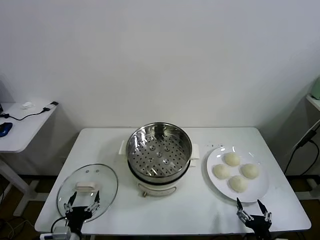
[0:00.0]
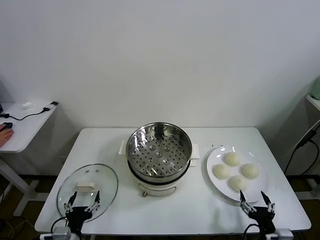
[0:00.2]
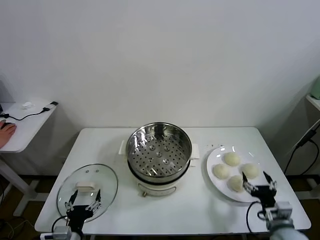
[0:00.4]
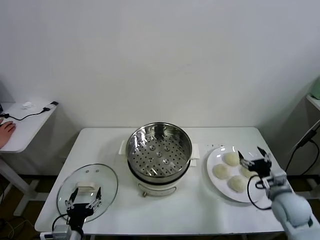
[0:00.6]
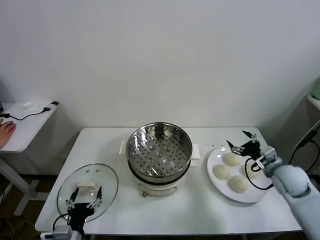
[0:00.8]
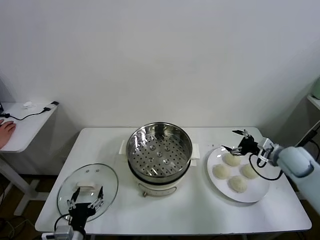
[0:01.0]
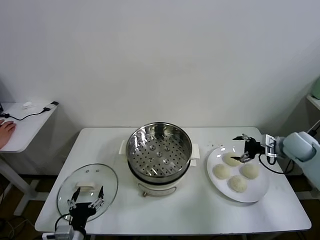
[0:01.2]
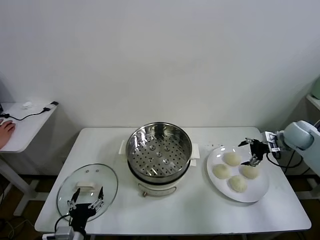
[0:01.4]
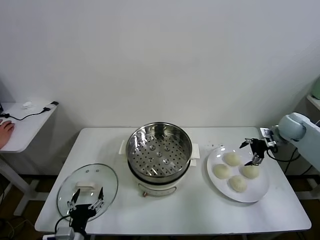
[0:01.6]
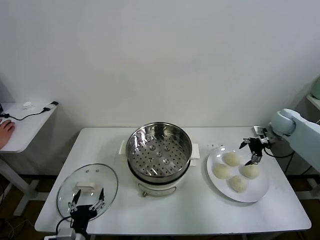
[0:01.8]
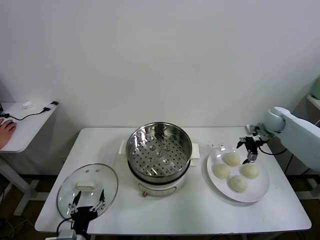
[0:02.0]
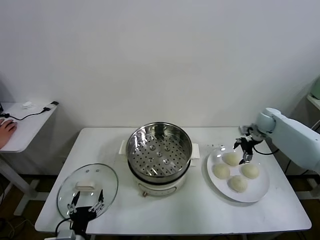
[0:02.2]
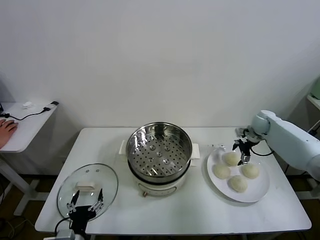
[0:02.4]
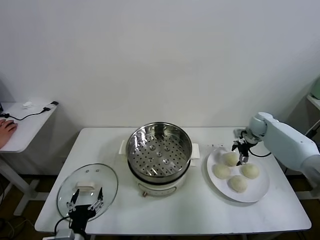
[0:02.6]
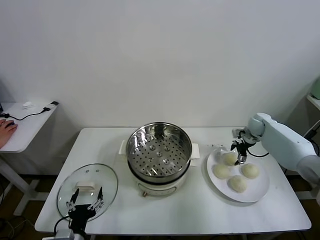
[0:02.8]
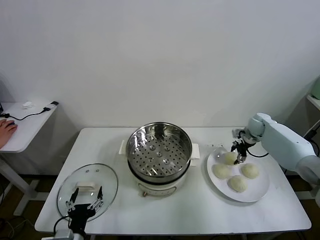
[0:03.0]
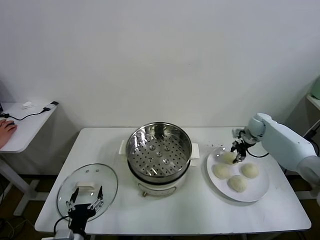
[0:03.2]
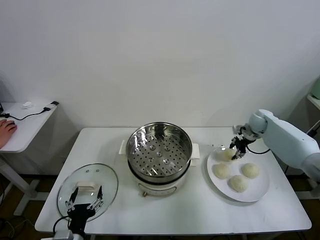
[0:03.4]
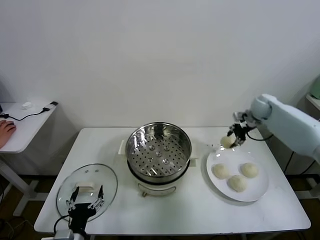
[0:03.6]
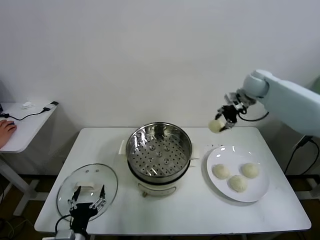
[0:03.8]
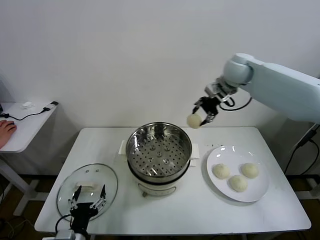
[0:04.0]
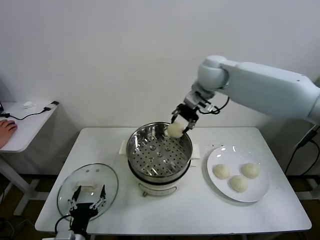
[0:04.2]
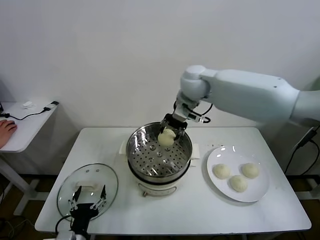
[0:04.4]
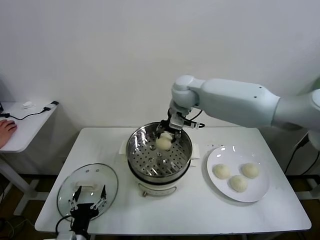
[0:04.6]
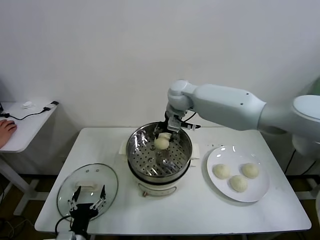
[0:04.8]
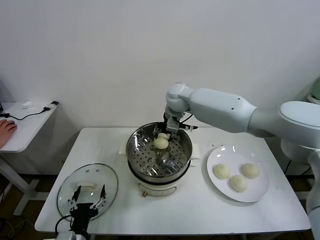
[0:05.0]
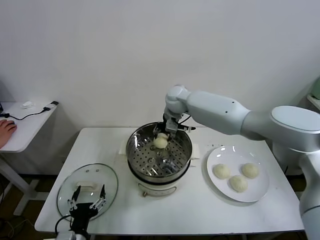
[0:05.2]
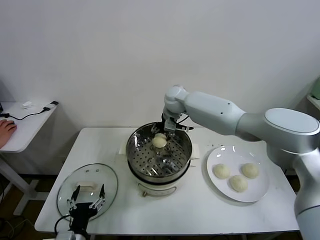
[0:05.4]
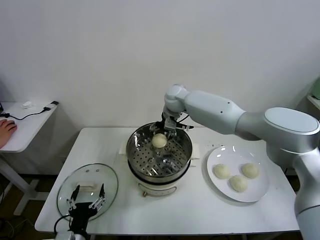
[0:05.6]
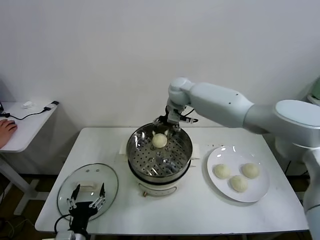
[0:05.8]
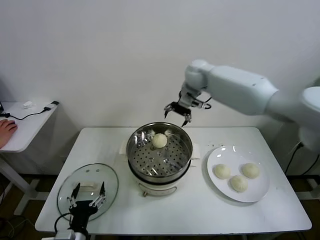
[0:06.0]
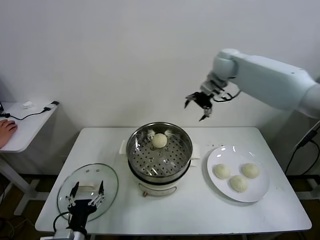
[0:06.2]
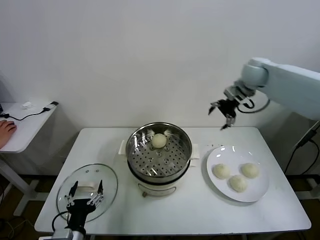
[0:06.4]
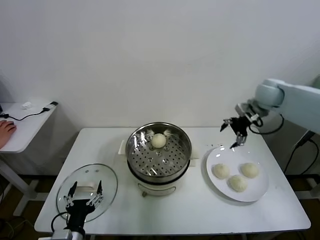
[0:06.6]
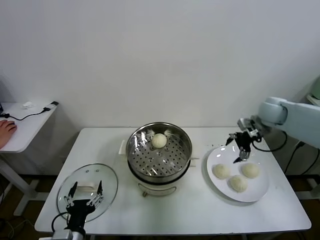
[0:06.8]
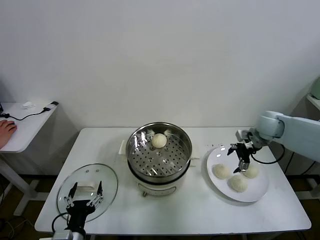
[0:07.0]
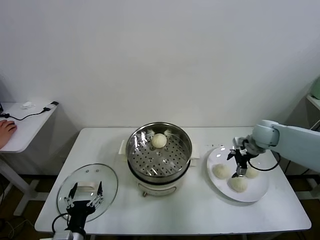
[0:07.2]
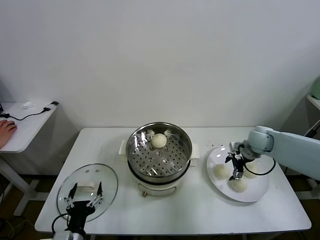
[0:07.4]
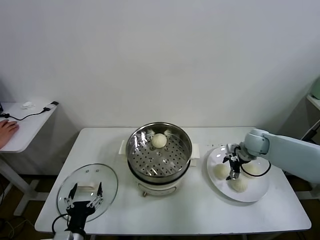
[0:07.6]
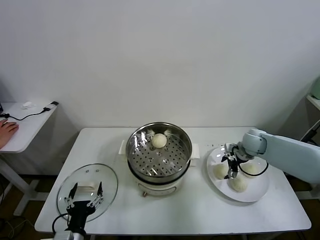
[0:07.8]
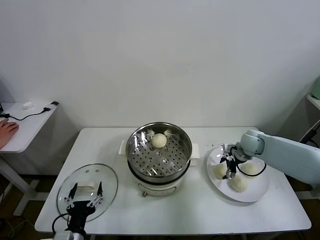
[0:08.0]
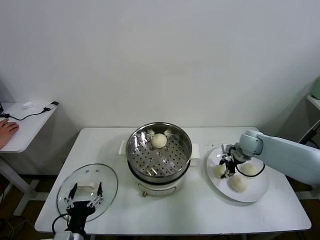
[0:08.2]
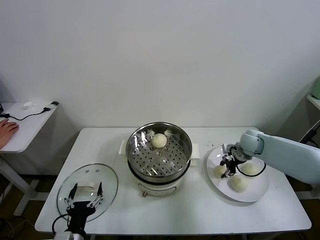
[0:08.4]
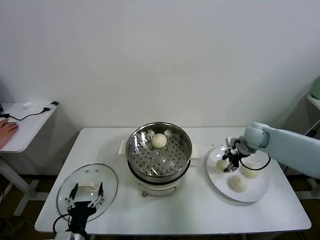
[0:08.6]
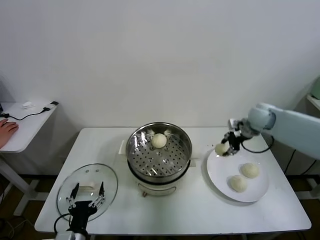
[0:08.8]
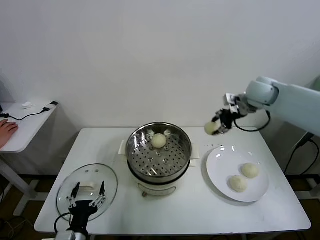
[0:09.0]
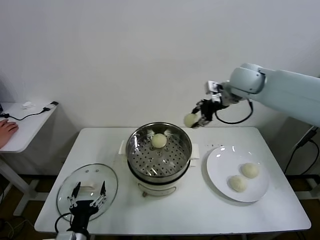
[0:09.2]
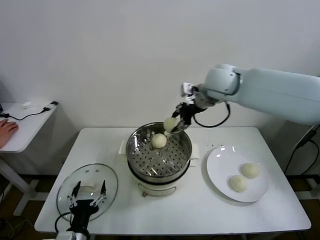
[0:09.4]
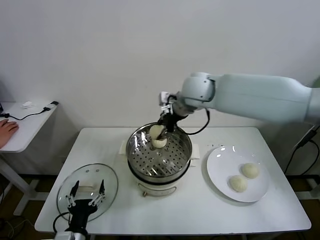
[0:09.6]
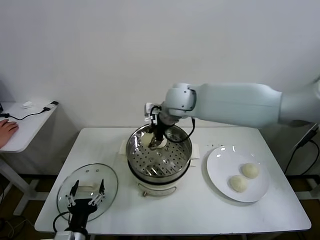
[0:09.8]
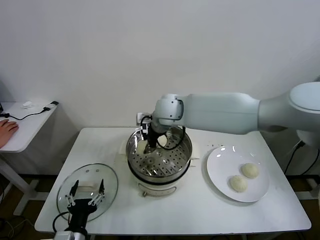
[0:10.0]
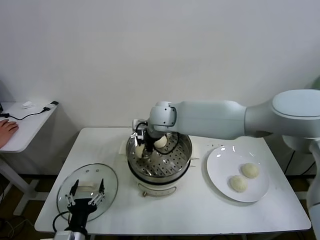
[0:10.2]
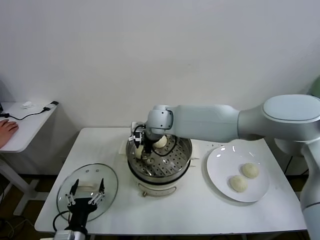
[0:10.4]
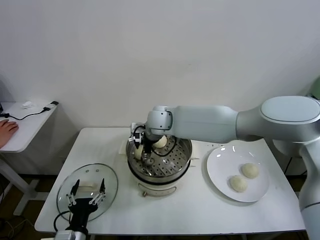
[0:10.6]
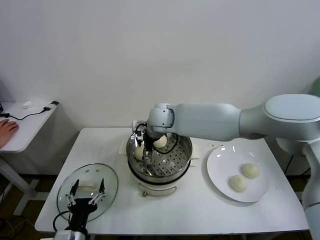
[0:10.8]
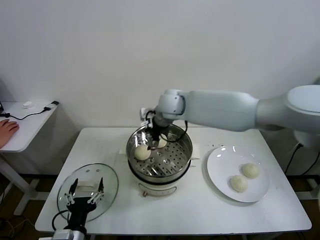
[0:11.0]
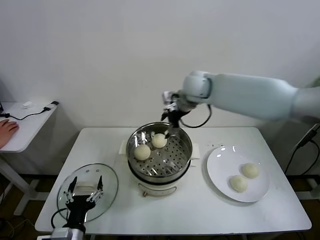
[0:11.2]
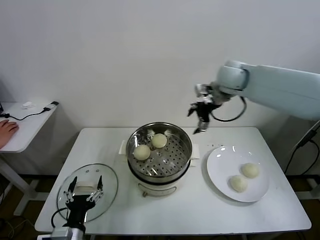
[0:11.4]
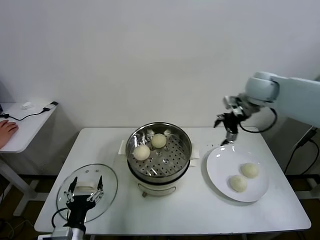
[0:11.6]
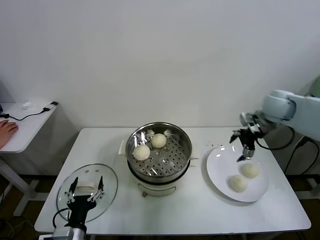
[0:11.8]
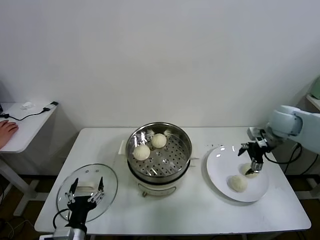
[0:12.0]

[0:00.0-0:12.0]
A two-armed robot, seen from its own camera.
Task of the whole recording: take steamed baozi put them in steamer.
Step, 0.0 to 3.0 s: Grasp the baozi in the plate with right gripper.
Step, 3.2 to 5.6 s: Place the baozi on the steamer with right gripper.
Step, 5.8 to 8.2 s: Grasp the baozi in the plate with right gripper.
Step, 8.4 to 10.8 s: Place the baozi on the steamer with right gripper.
1.6 to 3.0 s: The right gripper is displaced downward, forward and to the left by some 10 cm, and closes up.
3.0 to 4.4 s: The right gripper shifts roughly 40 cm to the left and upward.
4.4 to 6.0 s: The right gripper is displaced to the right and forward by some 10 cm, moves roughly 10 cm downward and comes back, and opens its fingers.
6.0 to 7.6 s: The right gripper is displaced downward, to the right and backward by approximately 35 cm.
7.6 to 9.0 s: The right gripper shifts approximately 25 cm upward, and closes its fingers.
9.0 to 10.4 s: The right gripper goes about 30 cm to the left.
10.4 to 12.0 s: The right gripper moves to the right, about 40 cm, and opens.

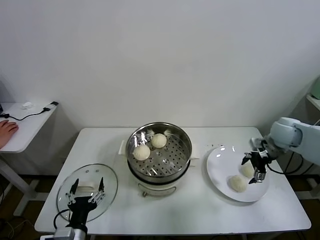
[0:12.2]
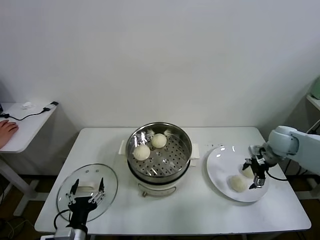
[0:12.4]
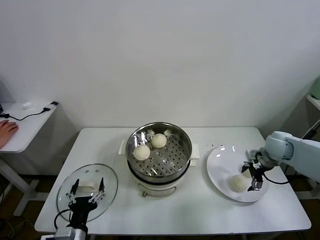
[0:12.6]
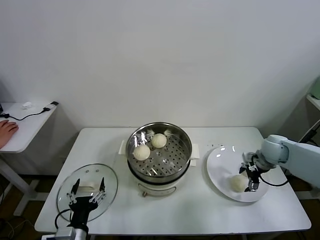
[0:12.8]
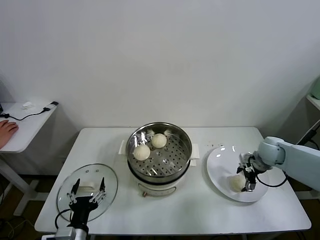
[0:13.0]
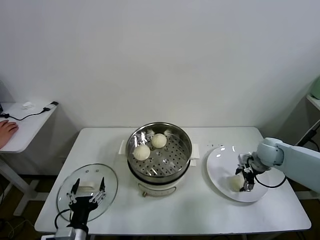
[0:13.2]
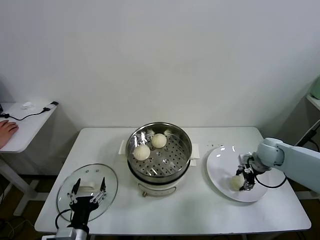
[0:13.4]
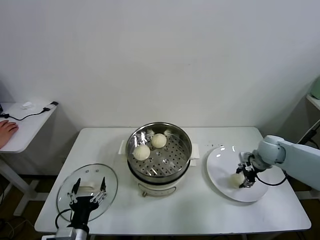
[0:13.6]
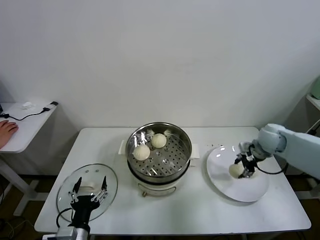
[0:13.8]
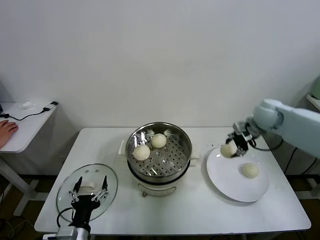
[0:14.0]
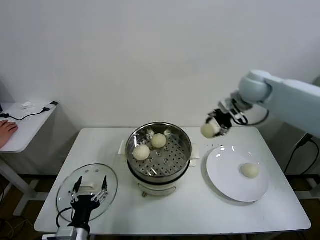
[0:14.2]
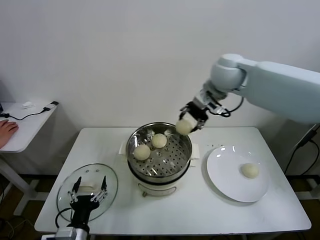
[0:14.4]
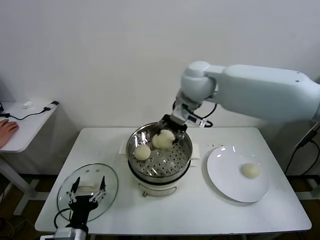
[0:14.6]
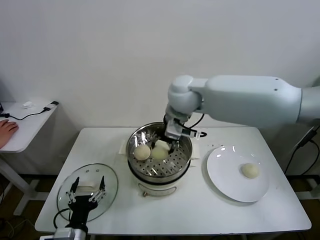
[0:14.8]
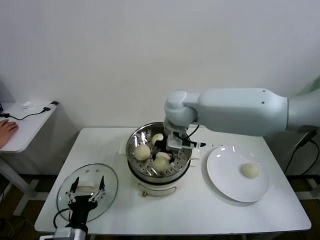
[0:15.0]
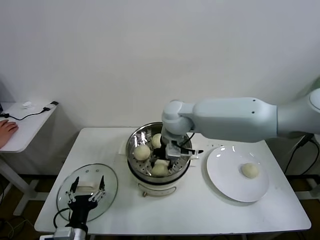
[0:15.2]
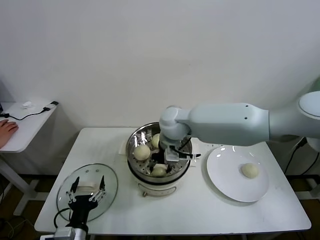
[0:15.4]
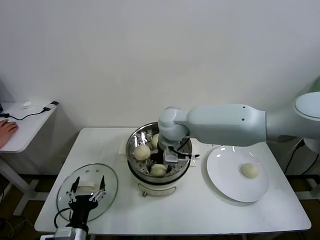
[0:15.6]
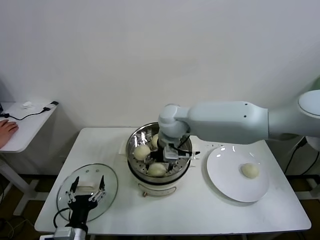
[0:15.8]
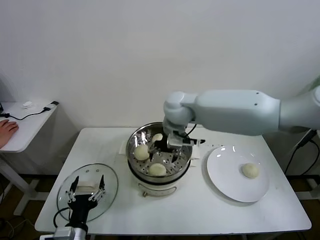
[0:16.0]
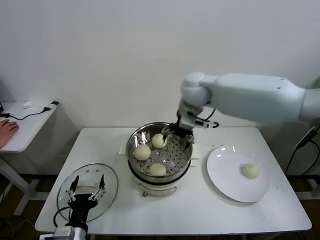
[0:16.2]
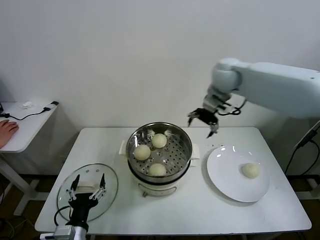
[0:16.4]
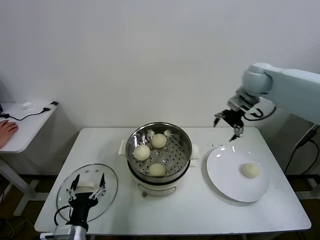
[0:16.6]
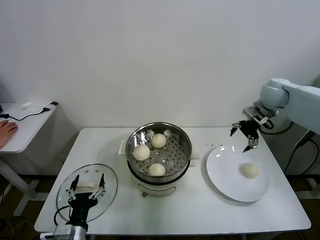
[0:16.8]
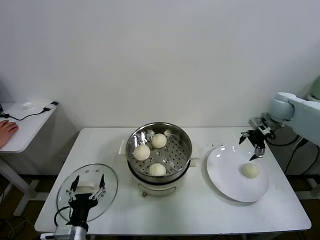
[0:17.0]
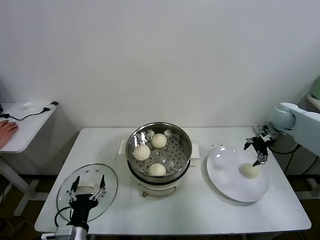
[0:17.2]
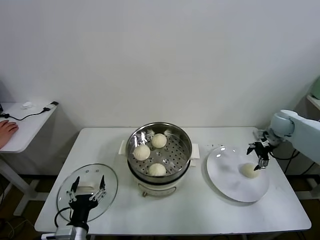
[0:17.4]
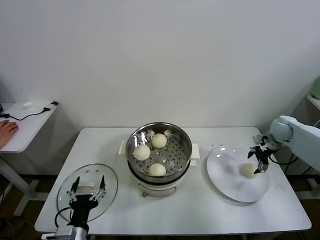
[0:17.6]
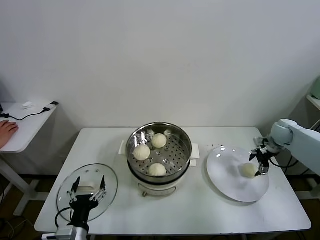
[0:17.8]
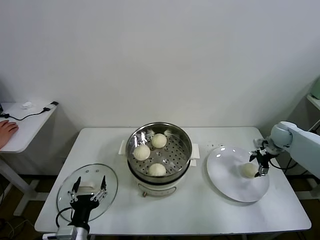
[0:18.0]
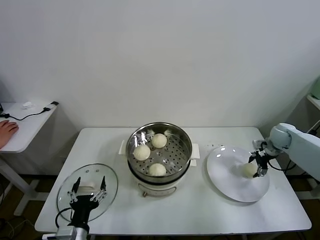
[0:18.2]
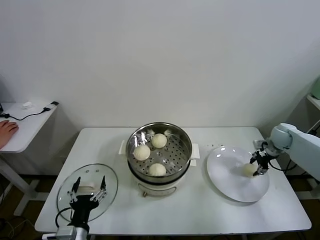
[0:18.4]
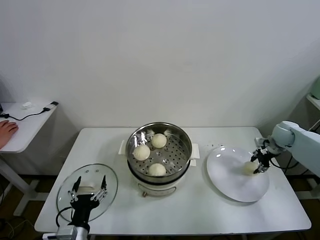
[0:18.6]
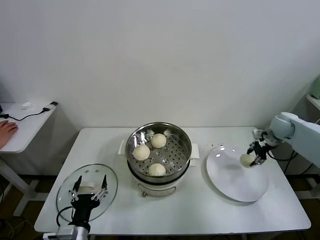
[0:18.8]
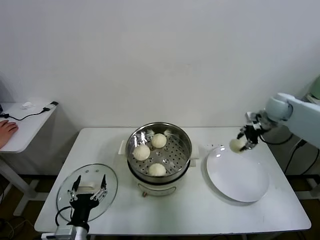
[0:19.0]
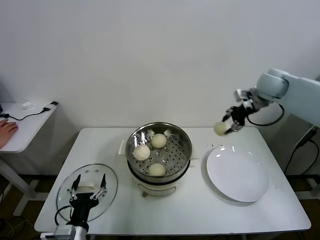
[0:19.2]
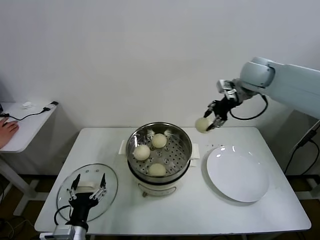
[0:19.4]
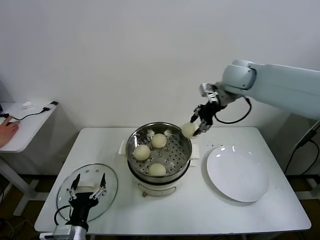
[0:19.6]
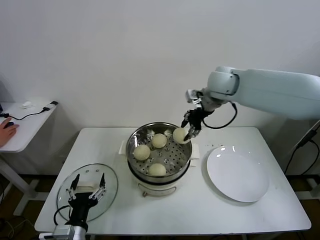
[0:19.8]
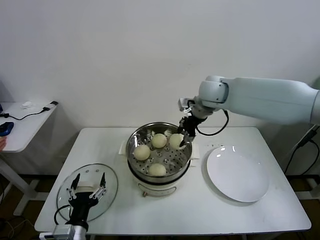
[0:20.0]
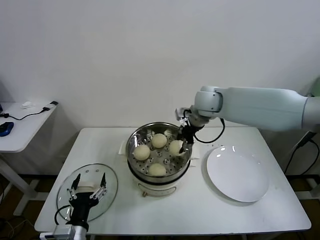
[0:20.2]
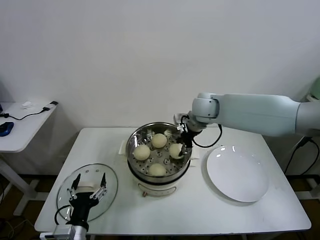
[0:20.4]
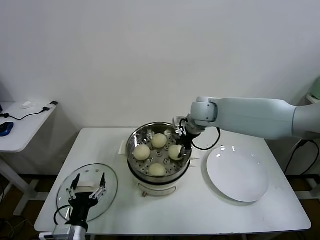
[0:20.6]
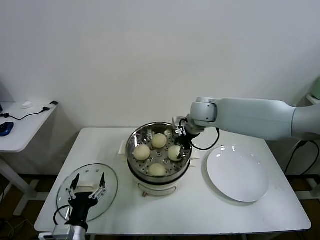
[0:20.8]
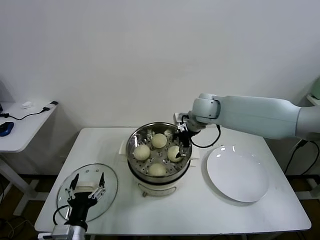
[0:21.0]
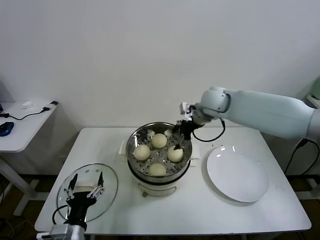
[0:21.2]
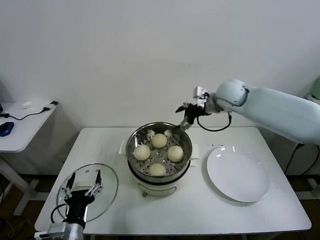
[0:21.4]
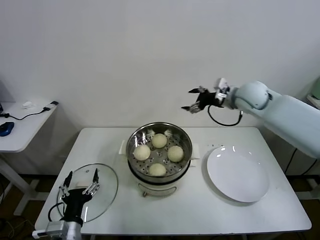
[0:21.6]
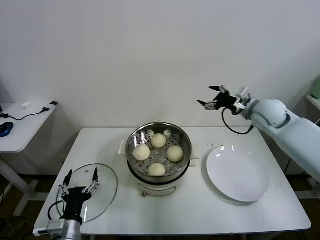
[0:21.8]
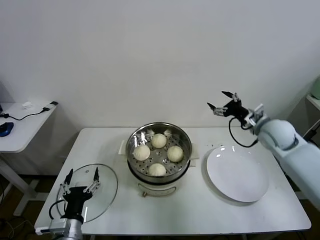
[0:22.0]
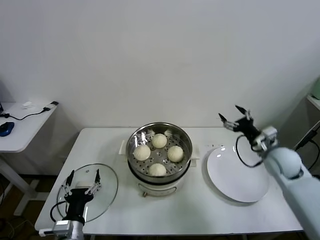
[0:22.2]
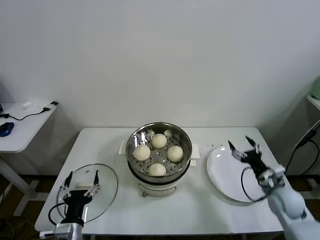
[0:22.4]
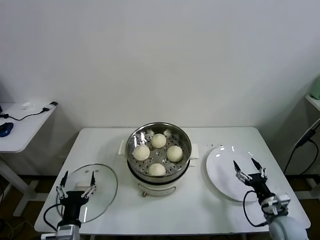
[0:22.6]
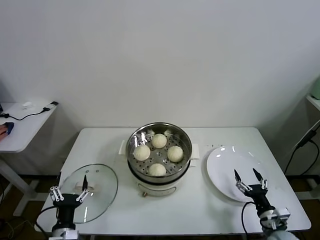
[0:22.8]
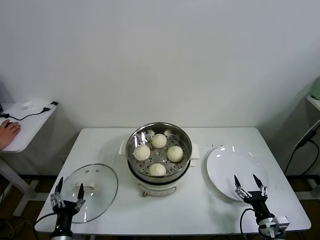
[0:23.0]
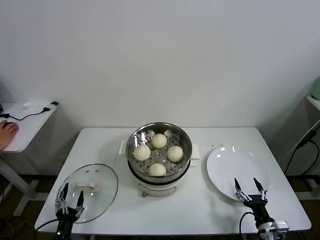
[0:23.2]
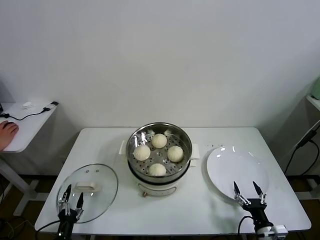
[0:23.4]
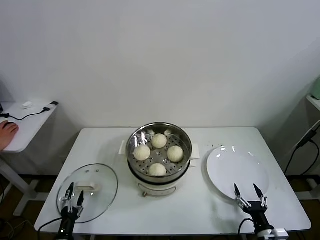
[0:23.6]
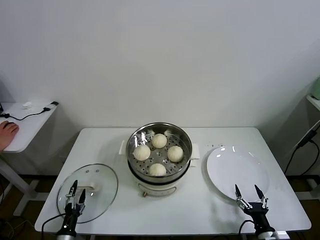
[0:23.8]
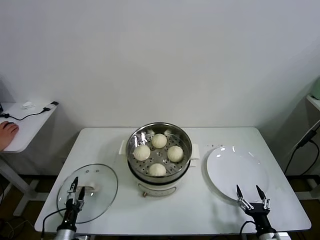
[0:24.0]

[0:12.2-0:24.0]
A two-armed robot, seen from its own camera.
Task of the whole recording: take steamed baozi put them in steamer.
Step, 13.6 to 15.8 s: Place the baozi on the steamer with right gripper.
Step, 16.0 to 18.4 s: Grasp the baozi in the plate with right gripper.
Step, 18.6 to 20.8 s: Place the baozi on the steamer with right gripper.
12.2 to 13.6 s: The right gripper is displaced downward by roughly 5 cm, and closes.
13.6 to 15.2 s: The right gripper is displaced to the left and upward by approximately 40 cm.
15.2 to 16.6 s: The right gripper shifts about 25 cm to the right, and opens up.
16.6 to 18.2 s: The right gripper heads downward and to the right, covering approximately 30 cm.
18.2 to 19.6 s: The right gripper shifts some 35 cm to the left and upward, and closes up.
19.6 to 21.0 s: The right gripper goes about 15 cm downward and to the left, and opens.
21.0 to 22.6 s: The right gripper shifts some 50 cm backward, downward and to the right.
22.6 to 24.0 s: The right gripper goes roughly 10 cm backward and downward; the left gripper heads downward and to the left, covering about 15 cm.
